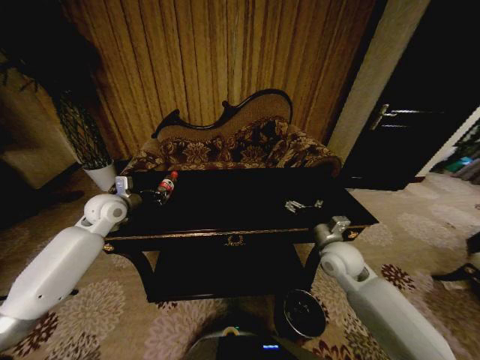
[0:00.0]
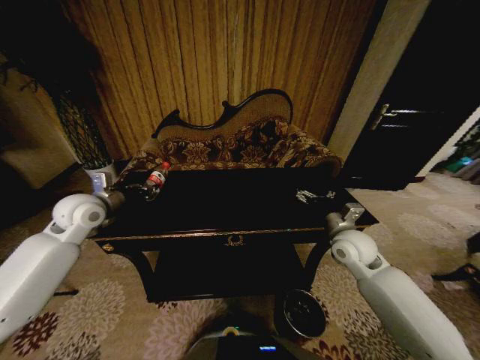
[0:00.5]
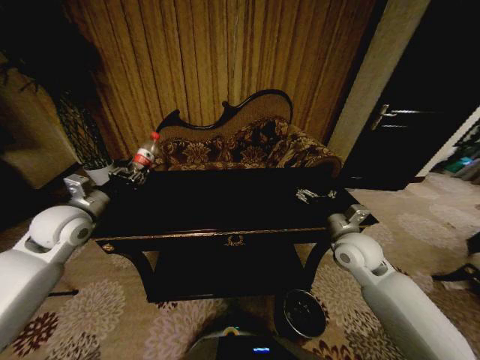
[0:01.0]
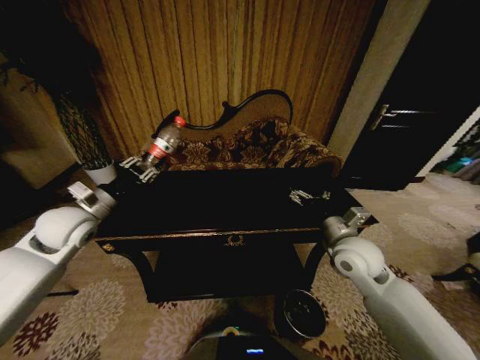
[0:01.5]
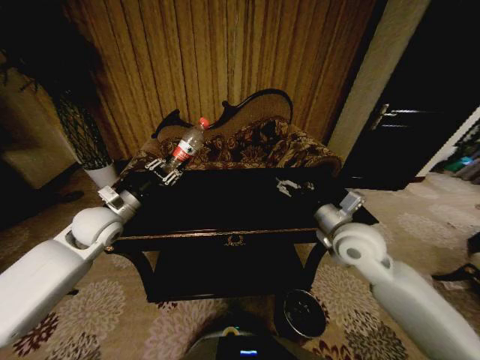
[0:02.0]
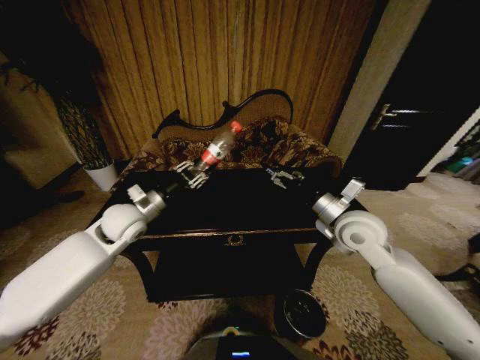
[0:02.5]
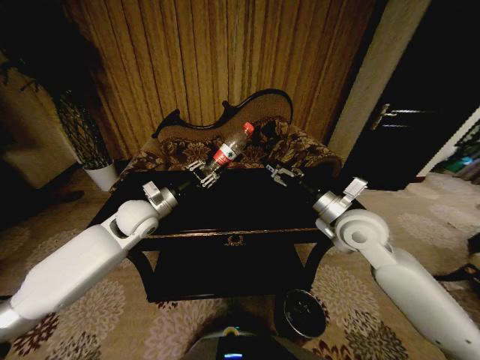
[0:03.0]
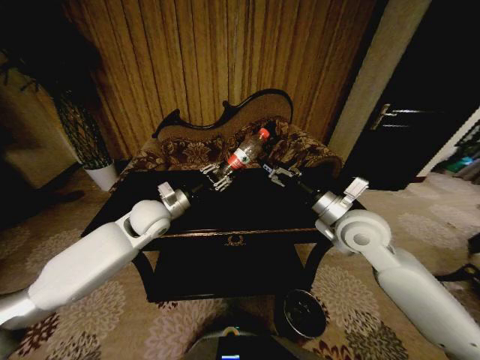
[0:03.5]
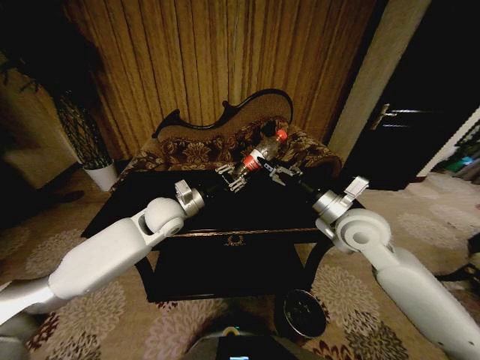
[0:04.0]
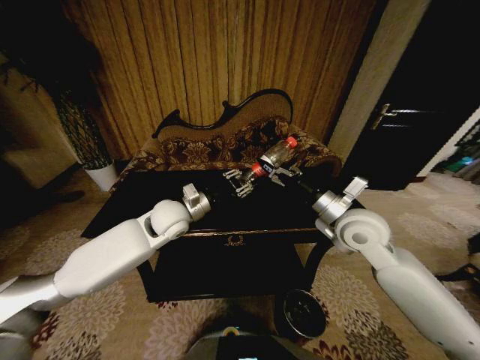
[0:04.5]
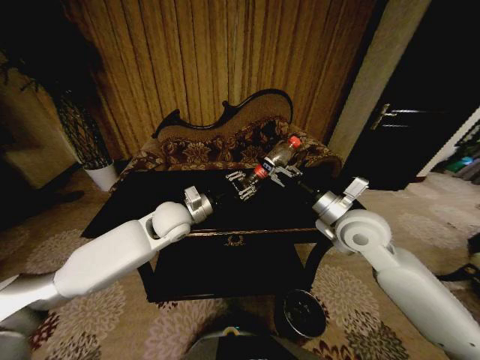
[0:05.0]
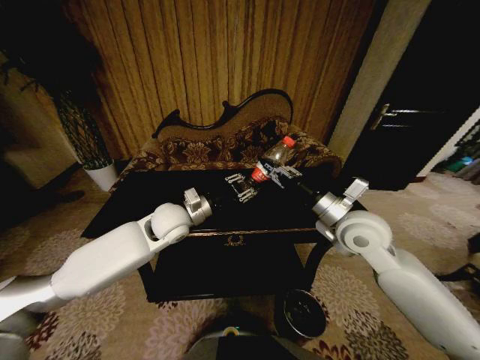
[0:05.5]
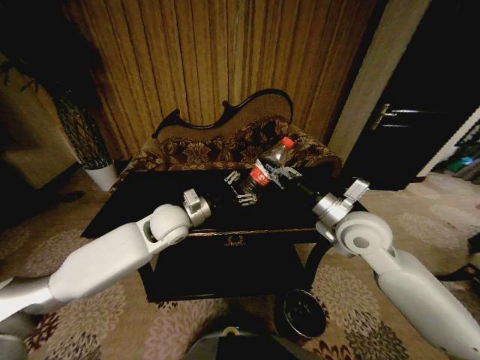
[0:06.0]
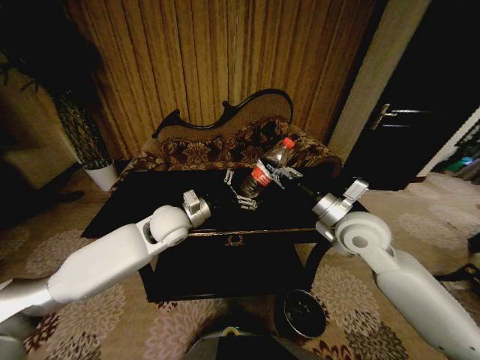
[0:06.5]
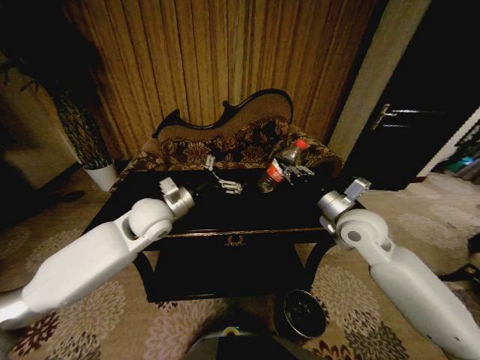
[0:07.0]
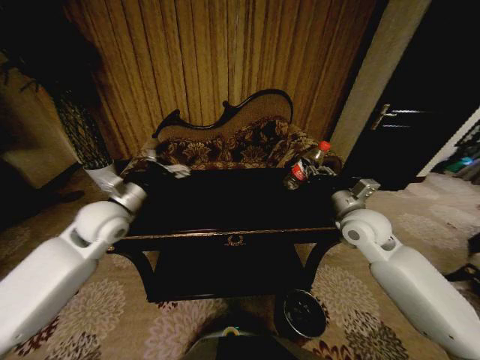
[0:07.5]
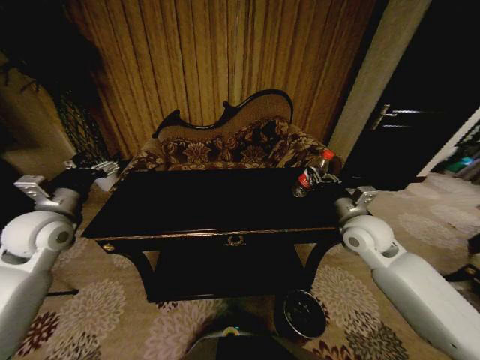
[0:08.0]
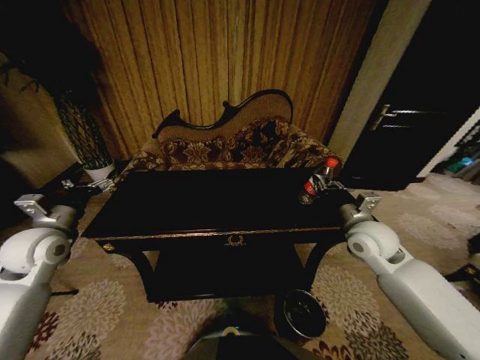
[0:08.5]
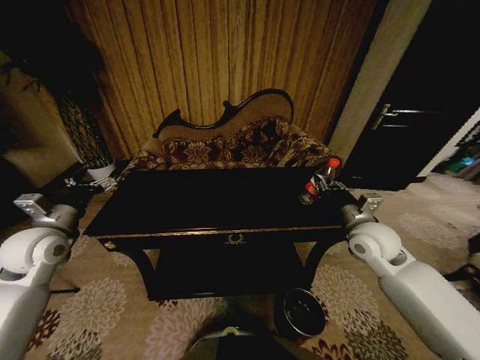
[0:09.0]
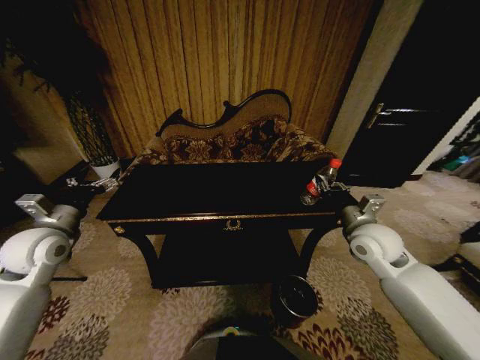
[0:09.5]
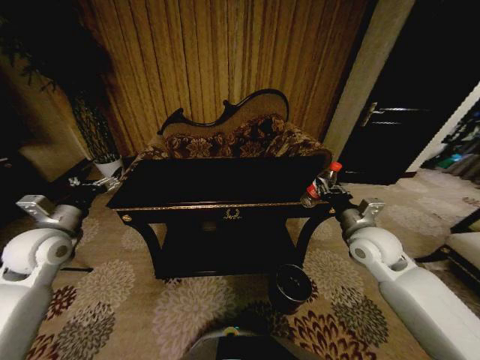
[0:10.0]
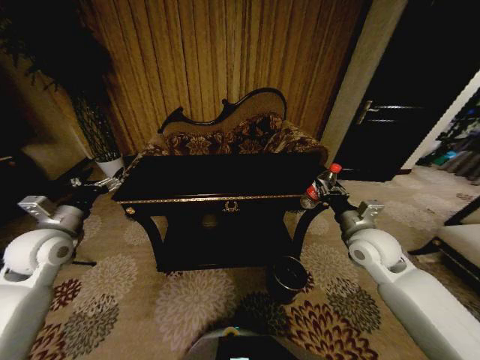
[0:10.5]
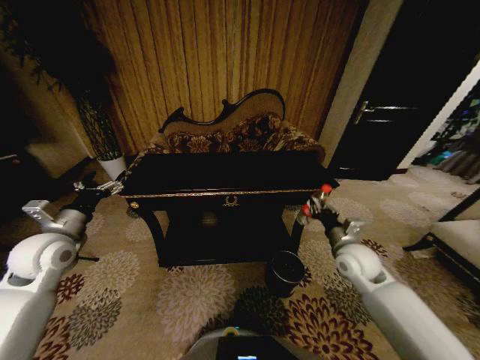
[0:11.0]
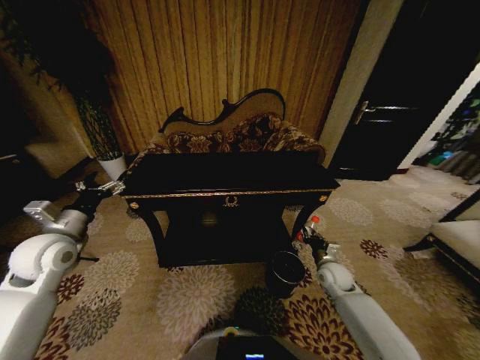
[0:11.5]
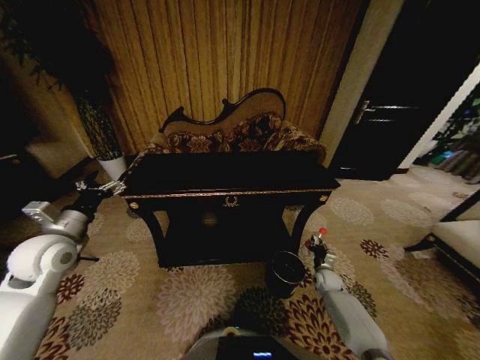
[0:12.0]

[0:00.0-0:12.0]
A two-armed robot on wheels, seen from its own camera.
Task of the whole recording: Move to the front of the table and place the trash on the table into the trash bin.
0:00.0 to 0:02.0: The right gripper shifts some 10 cm upward. Meanwhile the left gripper moves backward, some 5 cm.
0:02.0 to 0:04.0: The left gripper shifts roughly 15 cm to the right.
0:04.0 to 0:06.0: The left gripper opens up. Meanwhile the right gripper closes.
0:06.0 to 0:08.0: The left gripper moves to the left, roughly 25 cm, and opens; the right gripper heads to the right, covering roughly 5 cm.
0:10.0 to 0:12.0: The right gripper goes some 35 cm downward.

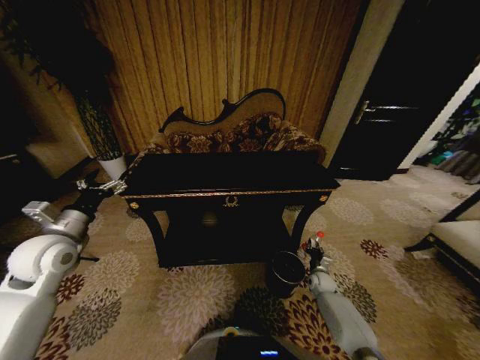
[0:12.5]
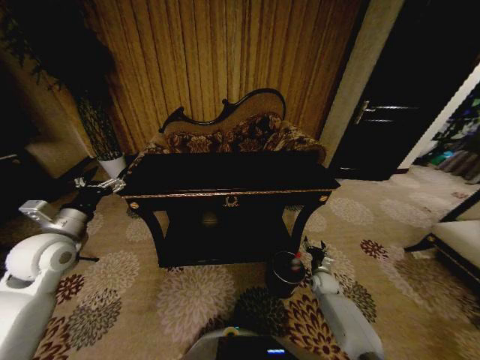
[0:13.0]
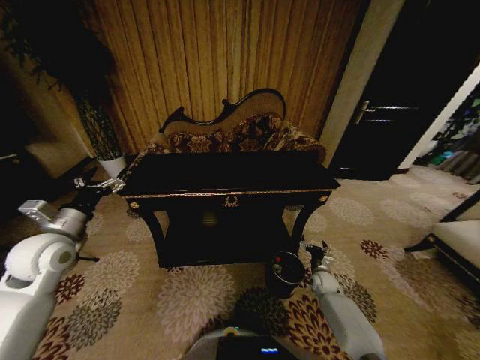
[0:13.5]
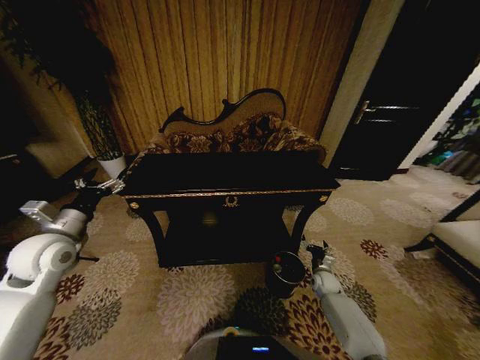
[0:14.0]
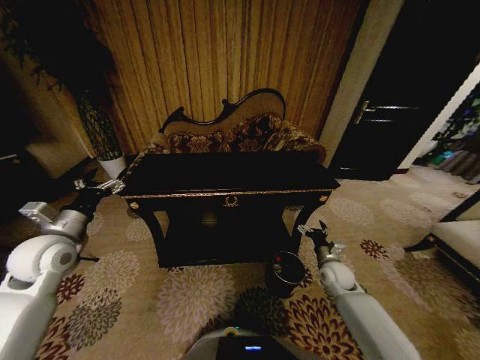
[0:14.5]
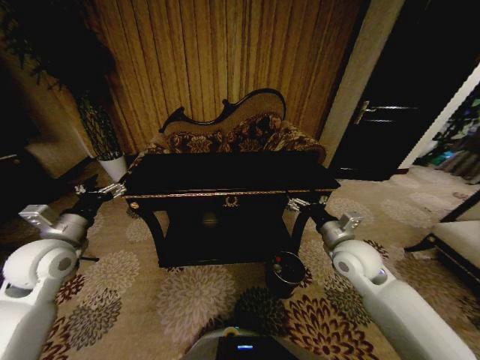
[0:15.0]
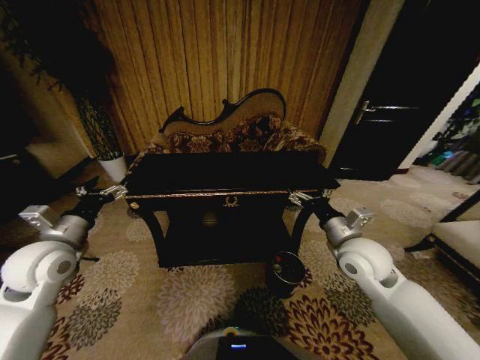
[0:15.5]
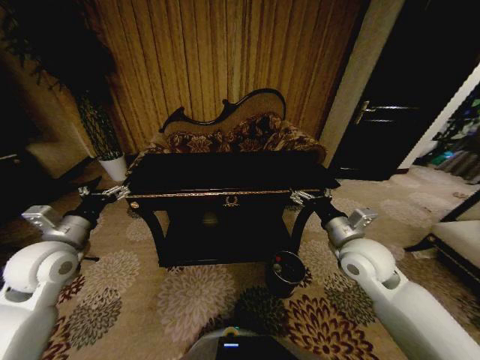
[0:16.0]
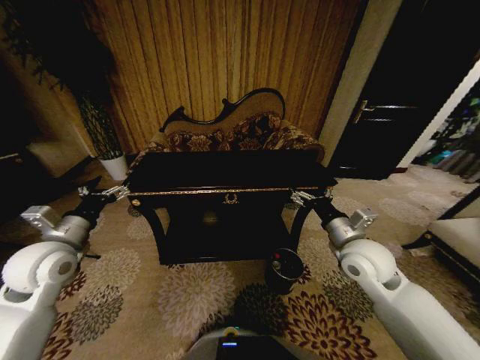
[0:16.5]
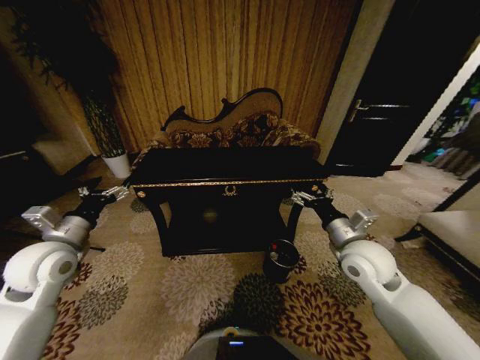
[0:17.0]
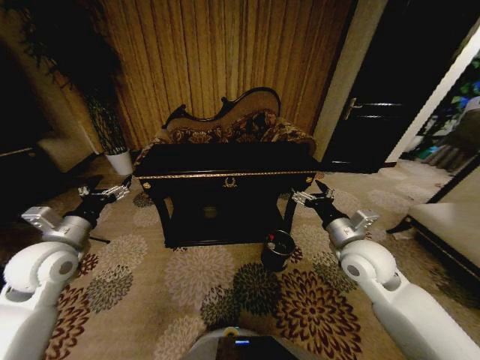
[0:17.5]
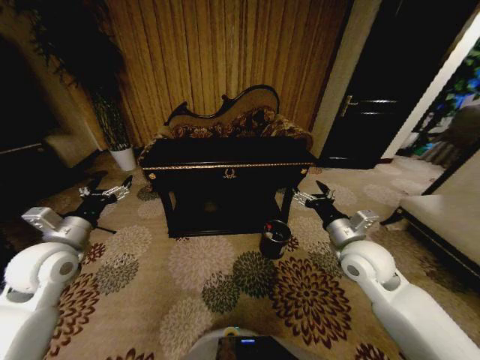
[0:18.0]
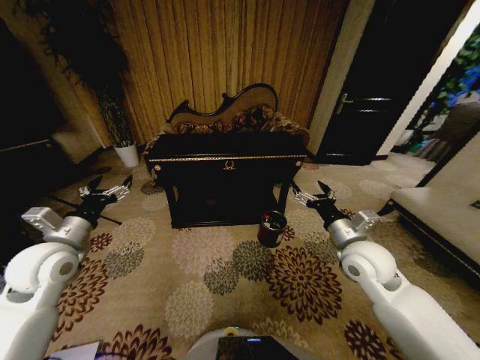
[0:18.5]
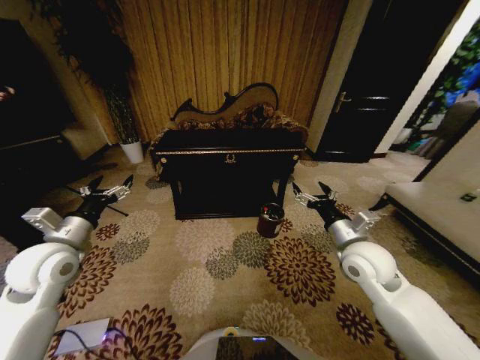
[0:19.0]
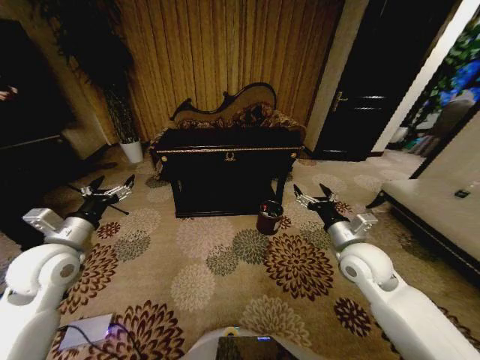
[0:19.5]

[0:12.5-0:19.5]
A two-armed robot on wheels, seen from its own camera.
Task of the whole recording: Move to the front of the table and place the trash on the table into the trash bin.
0:12.5 to 0:14.5: The right gripper is displaced upward by roughly 15 cm, and opens.
0:14.5 to 0:16.0: The right gripper goes about 20 cm upward.
